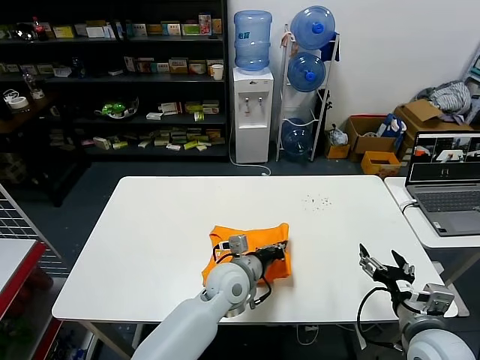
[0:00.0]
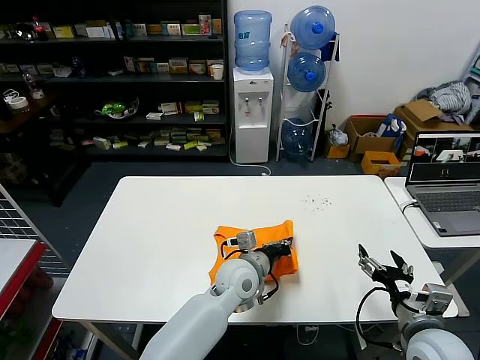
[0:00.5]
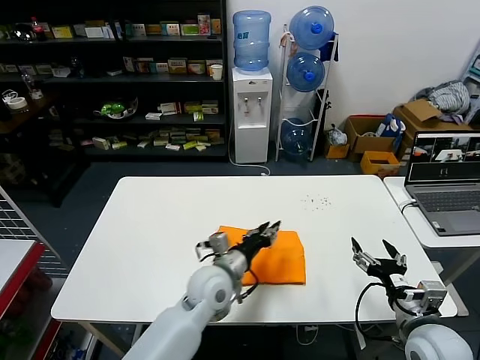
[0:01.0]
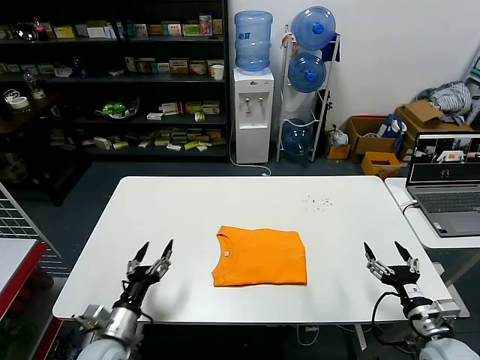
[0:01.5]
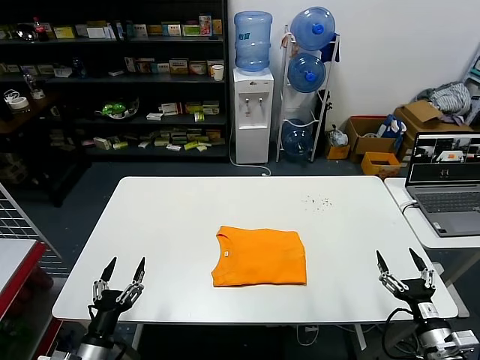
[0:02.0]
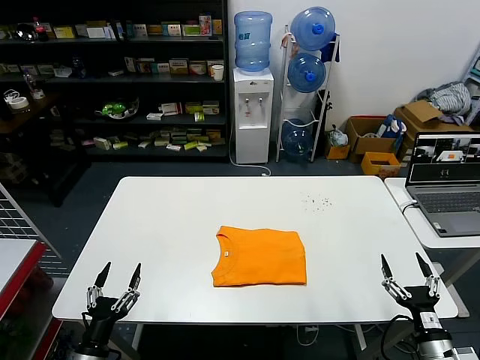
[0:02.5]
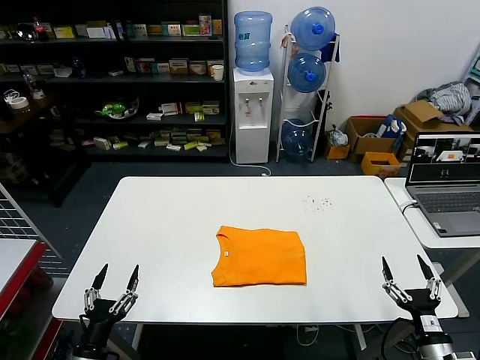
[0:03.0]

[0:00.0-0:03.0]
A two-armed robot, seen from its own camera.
Task of the whole recording: fold and organize the clothes.
0:00.0 to 0:01.5: The right gripper goes roughly 10 cm downward and to the right. The left gripper is displaced to the left and backward by about 25 cm, and opens up.
0:01.5 to 0:03.0: The right gripper is displaced backward and downward by roughly 10 cm. The left gripper moves backward and to the left, approximately 15 cm.
